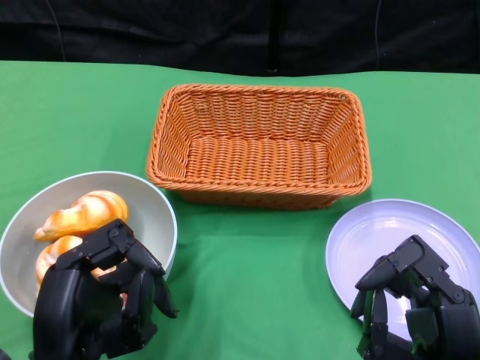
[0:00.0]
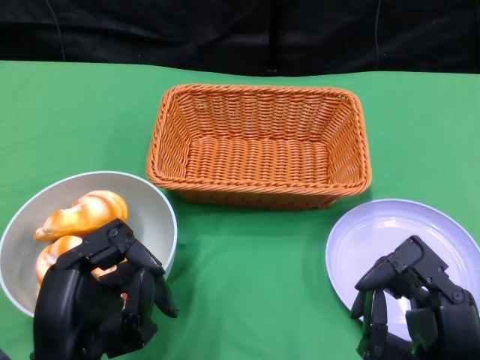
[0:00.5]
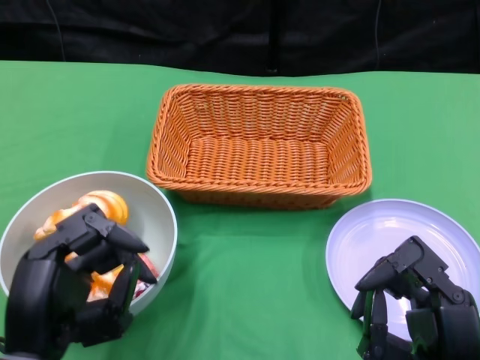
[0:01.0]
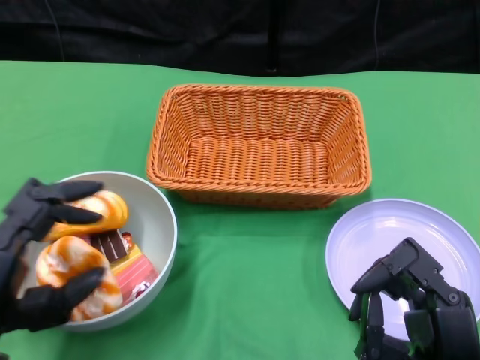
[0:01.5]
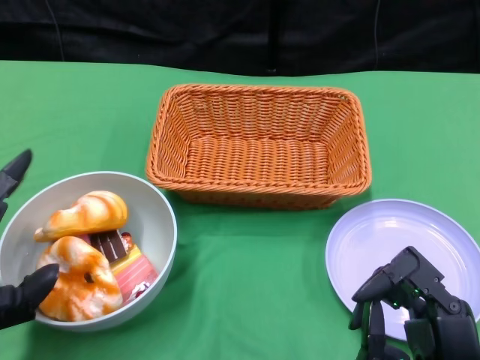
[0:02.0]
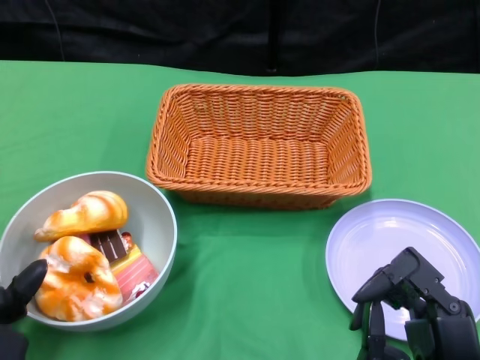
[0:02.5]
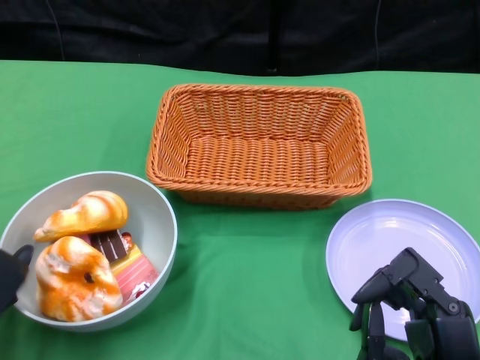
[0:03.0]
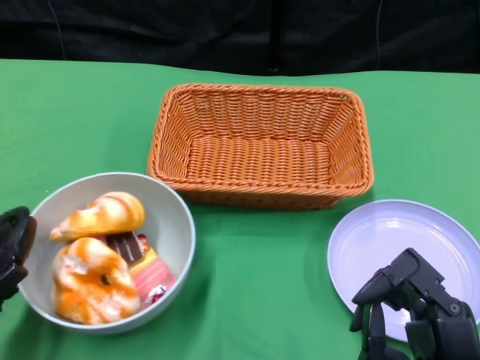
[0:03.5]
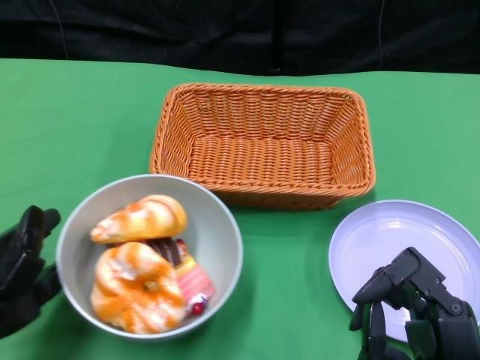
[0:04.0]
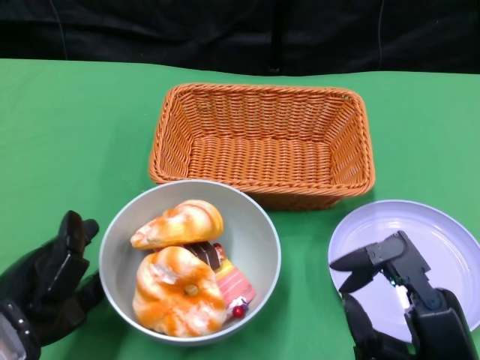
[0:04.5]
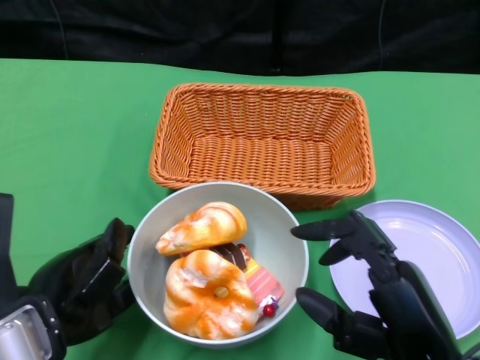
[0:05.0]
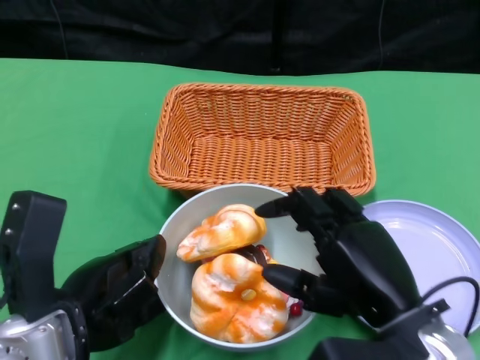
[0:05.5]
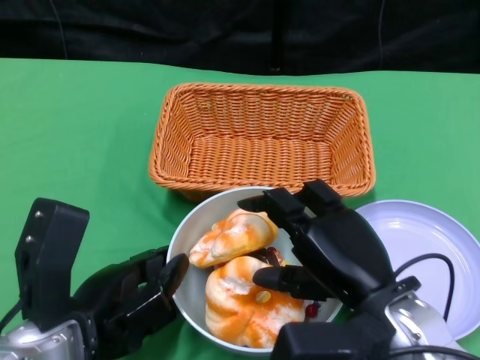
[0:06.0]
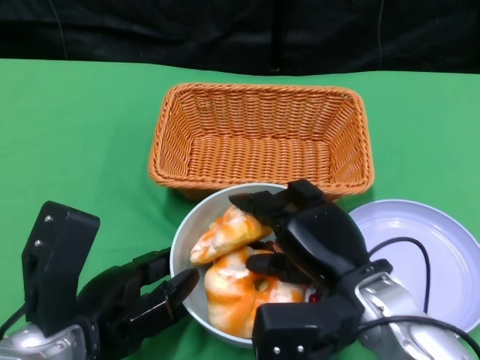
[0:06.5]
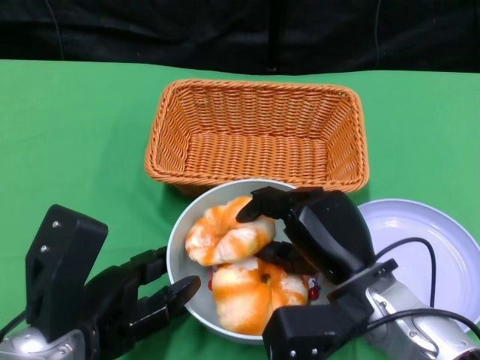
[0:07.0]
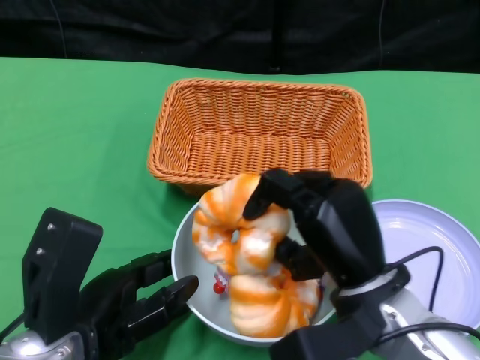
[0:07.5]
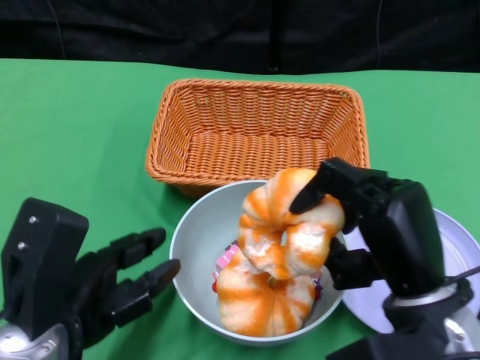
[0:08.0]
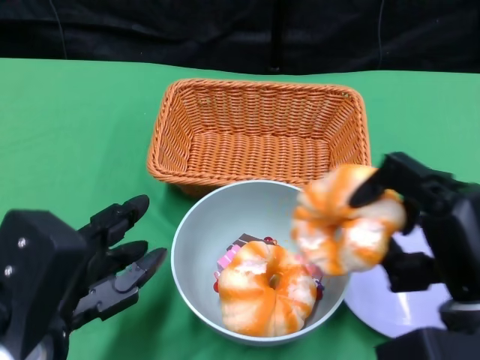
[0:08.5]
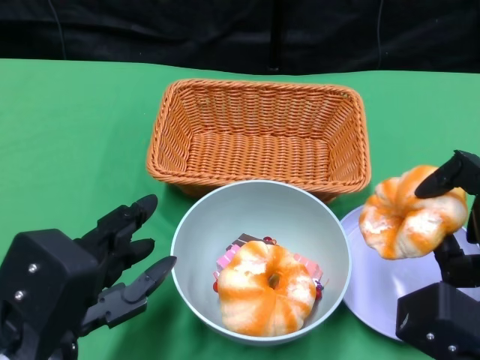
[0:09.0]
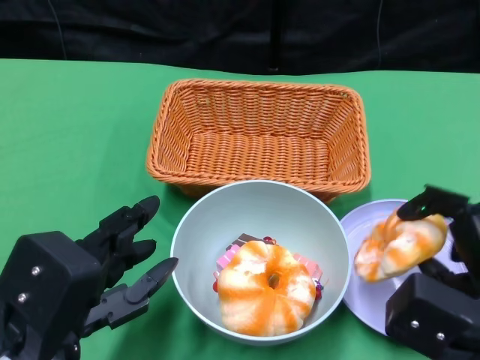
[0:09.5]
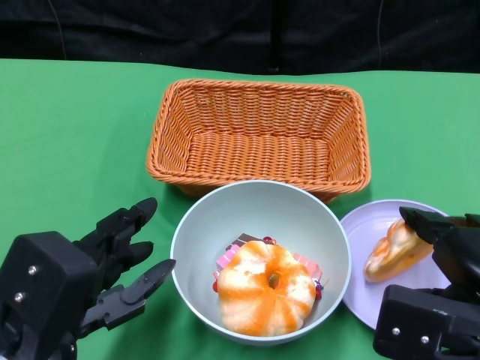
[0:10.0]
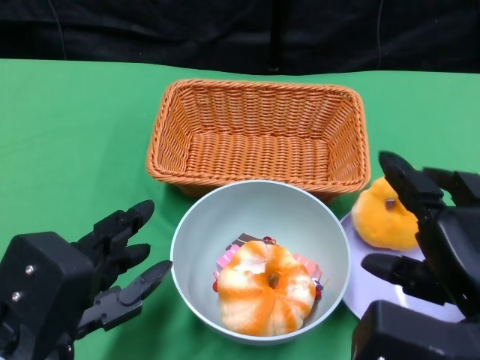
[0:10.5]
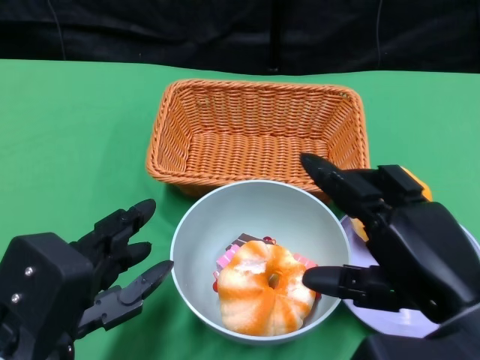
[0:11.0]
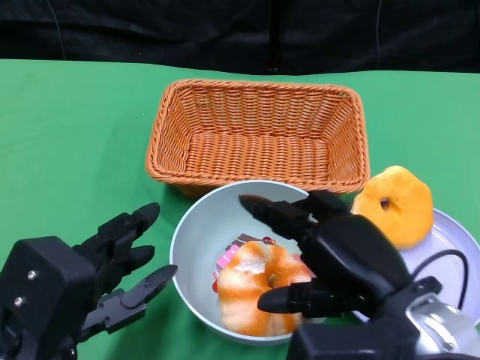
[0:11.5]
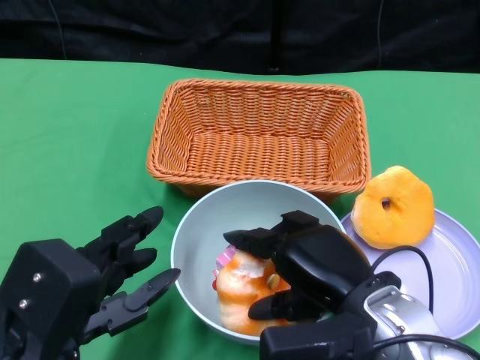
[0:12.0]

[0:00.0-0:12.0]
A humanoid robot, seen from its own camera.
Step, 0:00.0 to 0:05.0: Push the bowl to the center of the table using the left gripper.
Step, 0:05.5 to 0:10.0: Pick up the bread with the right gripper and place it on the plate.
0:04.0 to 0:06.0: The left hand travels to the right by some 10 cm. The right hand goes roughly 10 cm forward.
0:08.0 to 0:10.0: The right hand shifts roughly 5 cm to the right.
0:10.0 to 0:12.0: The right hand heads to the left, covering some 10 cm.

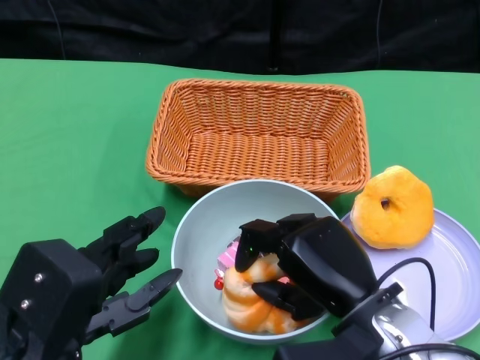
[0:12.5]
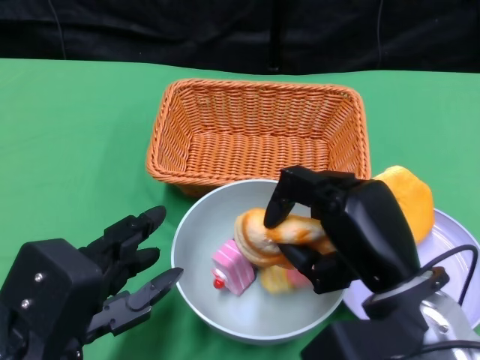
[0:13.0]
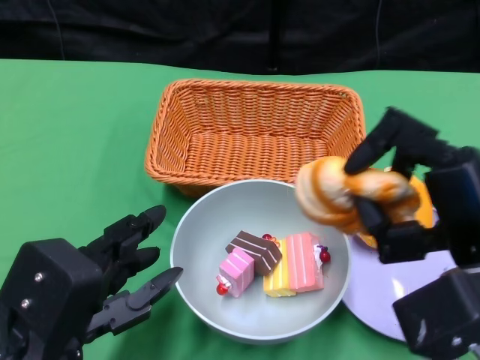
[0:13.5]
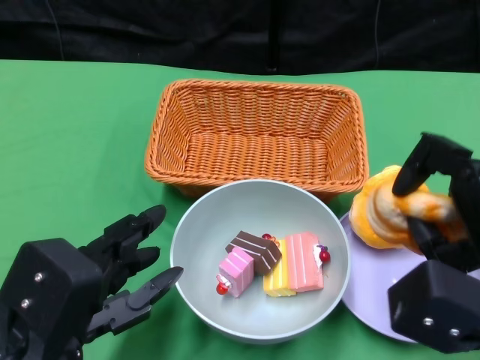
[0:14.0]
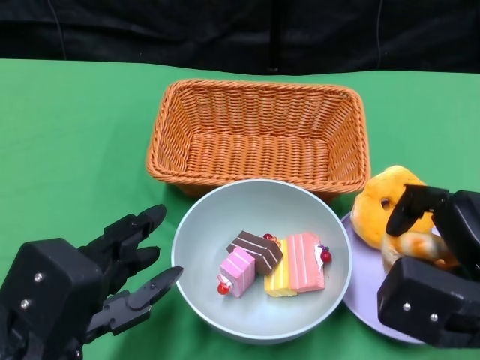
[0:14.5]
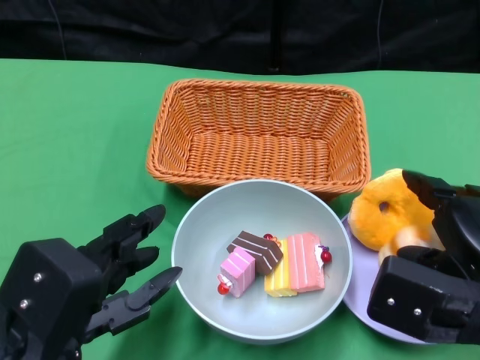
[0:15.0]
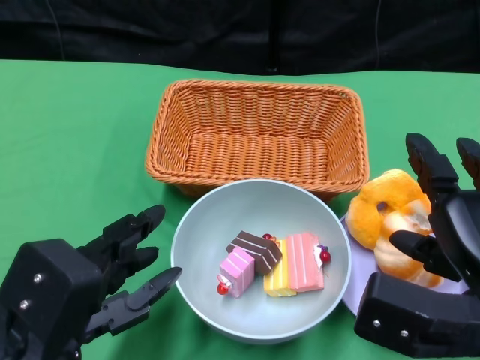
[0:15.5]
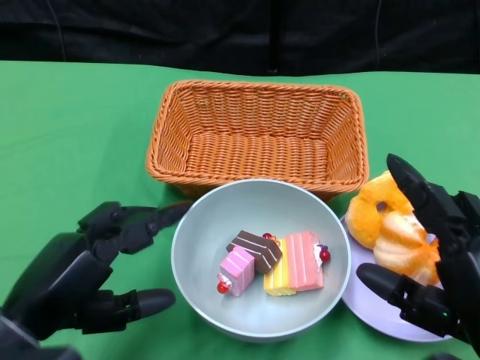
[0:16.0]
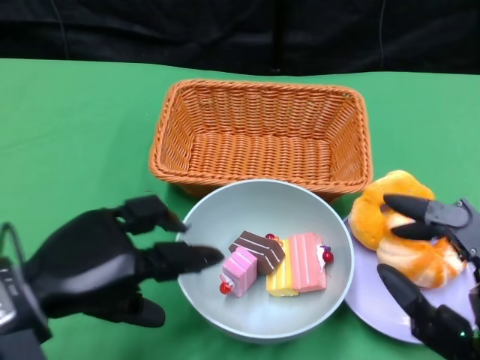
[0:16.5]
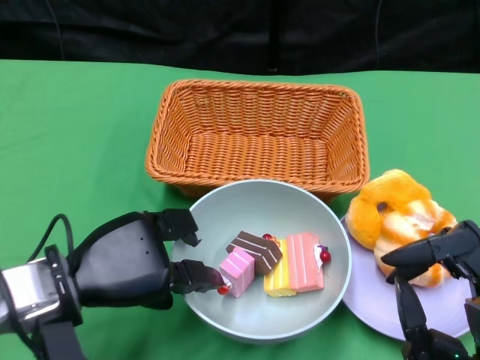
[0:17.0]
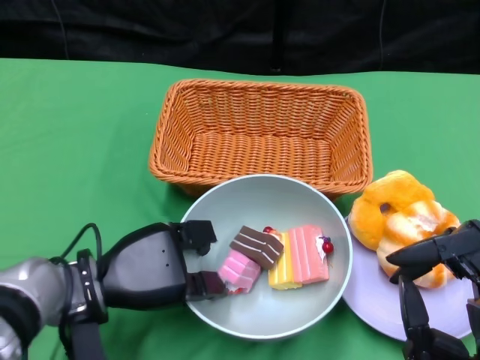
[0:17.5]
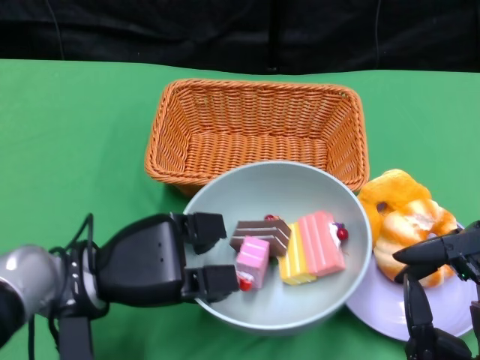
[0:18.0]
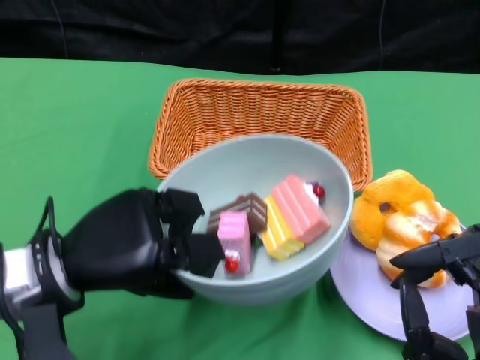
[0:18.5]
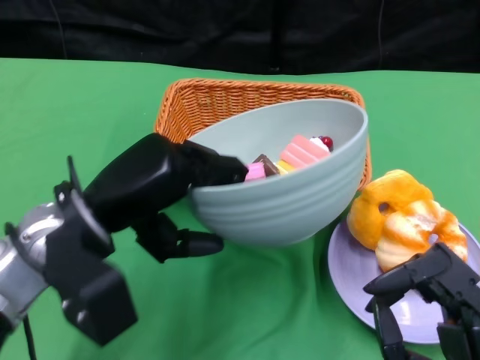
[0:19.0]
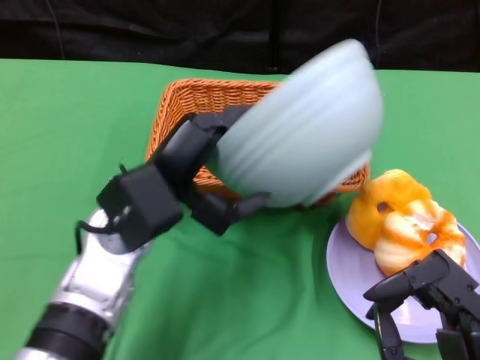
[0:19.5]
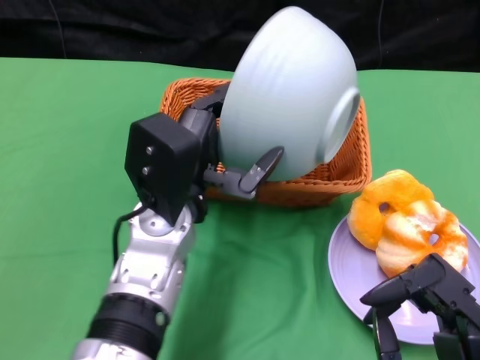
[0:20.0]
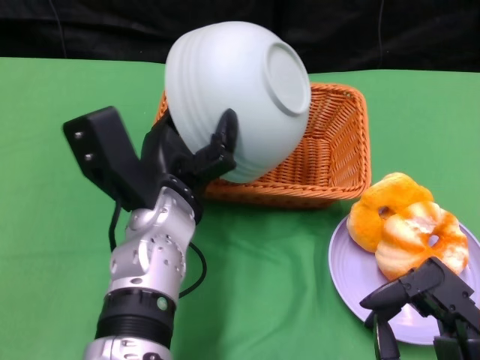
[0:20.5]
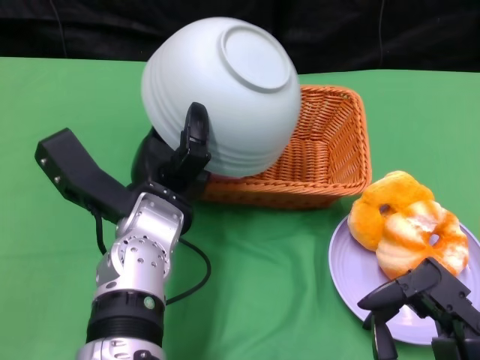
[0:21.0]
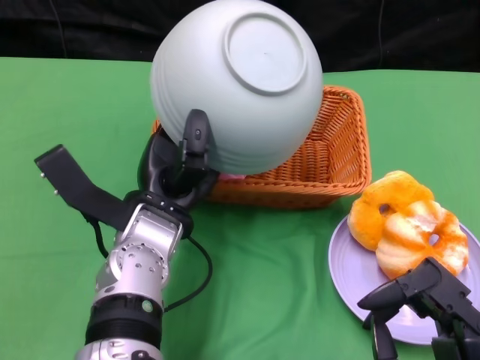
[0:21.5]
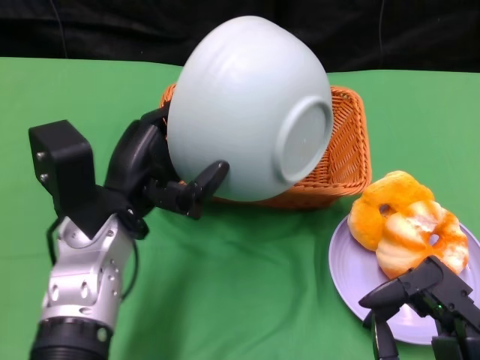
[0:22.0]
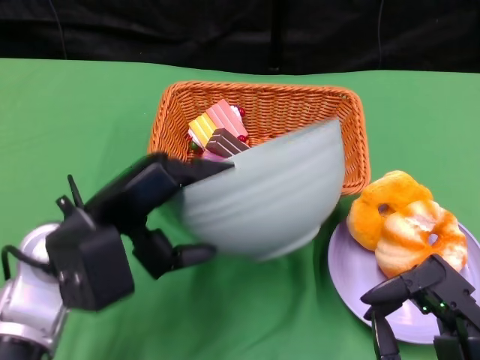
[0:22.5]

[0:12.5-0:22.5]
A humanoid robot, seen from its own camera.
Step, 0:12.5 to 0:14.5: Pick up the bread with the right gripper and place it on the plate.
Step, 0:15.5 to 0:17.5: Grasp the bowl with the left gripper.
Step, 0:18.0 to 0:21.5: Pour the cake into the basket with the left gripper.
0:12.5 to 0:14.5: The right hand is displaced to the right by approximately 10 cm.
0:14.5 to 0:16.5: The left hand shifts by about 5 cm. The right hand moves backward, approximately 10 cm.
0:16.5 to 0:18.5: The left hand travels downward and back again, some 10 cm each way.
0:18.5 to 0:20.5: The left hand shifts some 10 cm to the right and forward.
0:20.5 to 0:22.5: The left hand goes approximately 10 cm to the left.

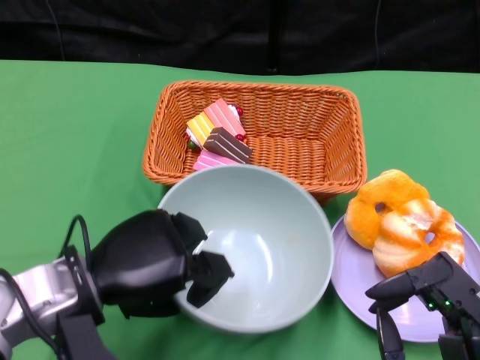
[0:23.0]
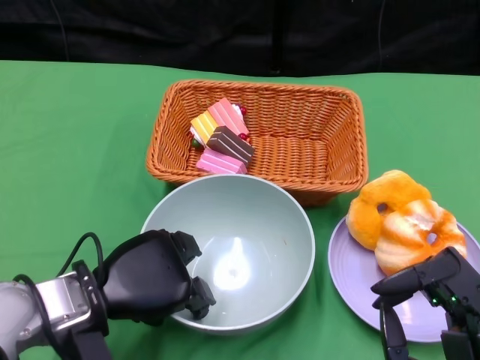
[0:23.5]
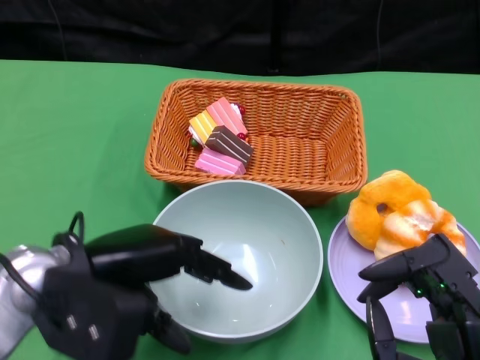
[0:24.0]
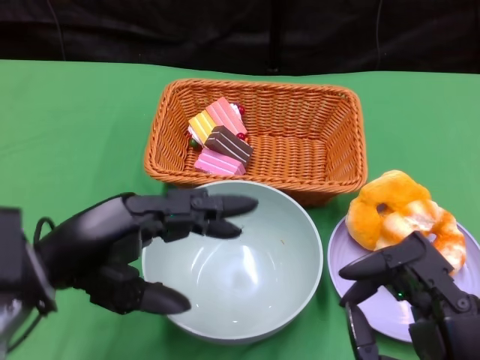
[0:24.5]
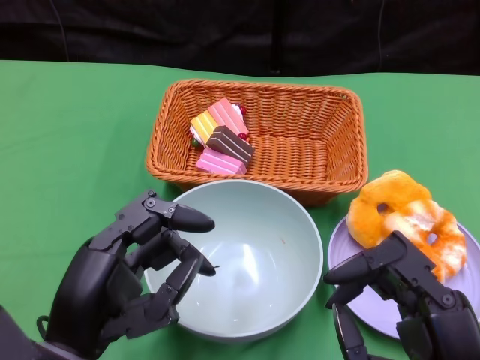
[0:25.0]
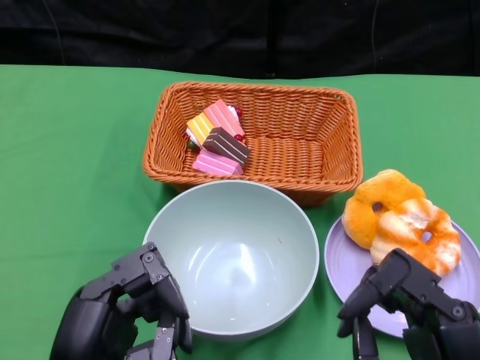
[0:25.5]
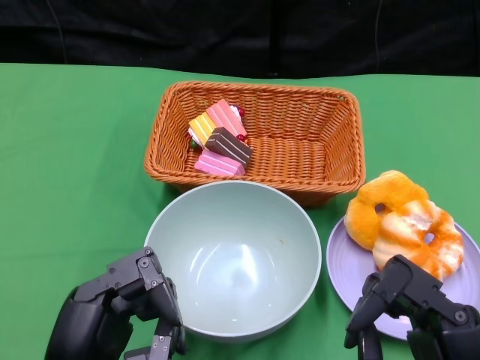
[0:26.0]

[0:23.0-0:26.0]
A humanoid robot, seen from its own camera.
0:23.0 to 0:24.5: The left hand goes about 5 cm upward.
0:24.5 to 0:26.0: The left hand moves backward and downward, approximately 10 cm.
